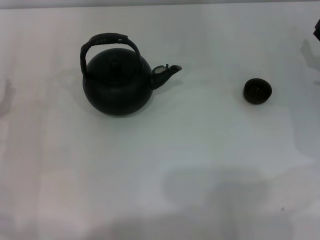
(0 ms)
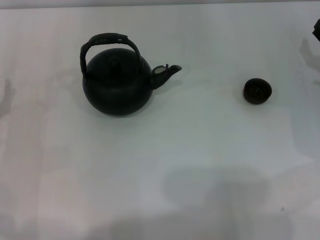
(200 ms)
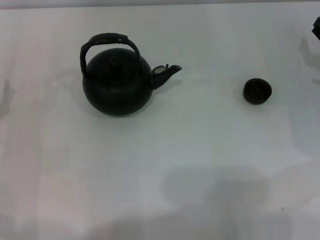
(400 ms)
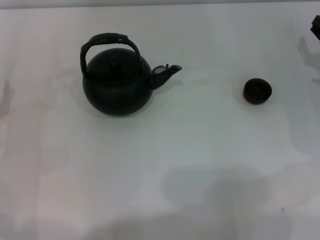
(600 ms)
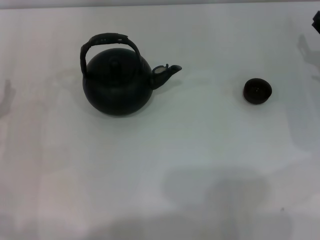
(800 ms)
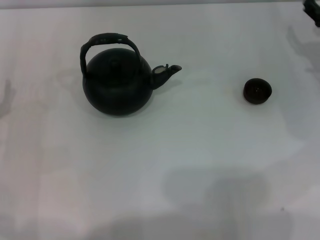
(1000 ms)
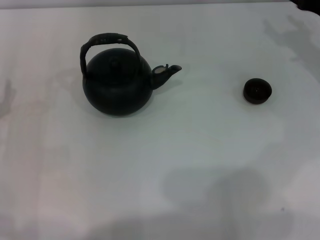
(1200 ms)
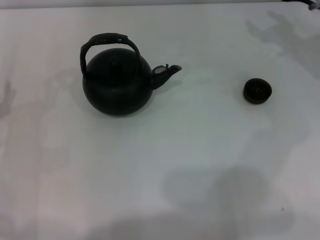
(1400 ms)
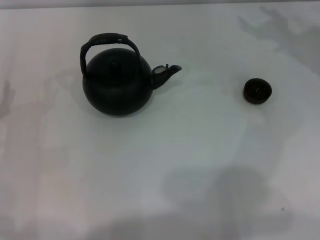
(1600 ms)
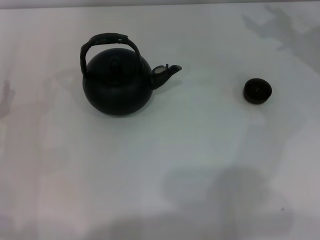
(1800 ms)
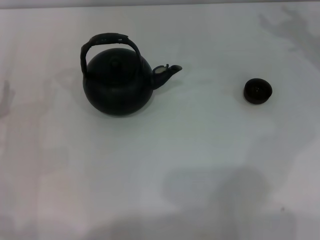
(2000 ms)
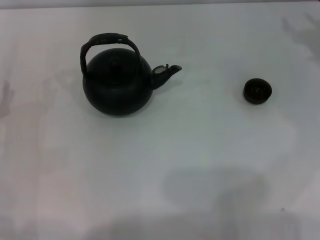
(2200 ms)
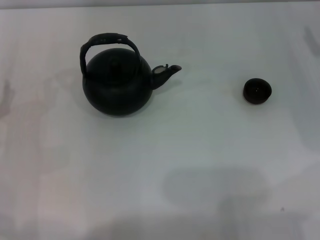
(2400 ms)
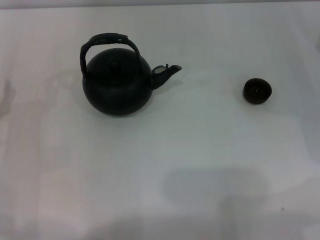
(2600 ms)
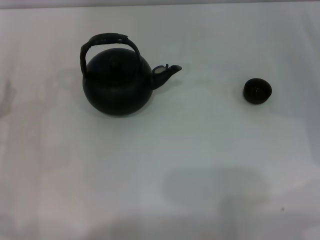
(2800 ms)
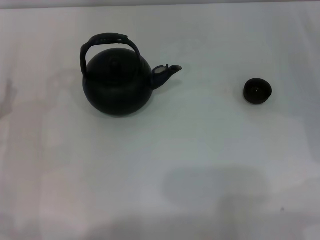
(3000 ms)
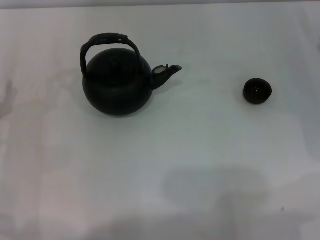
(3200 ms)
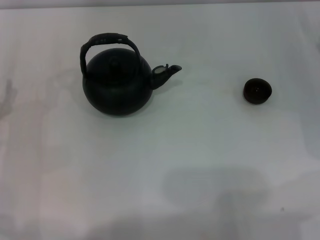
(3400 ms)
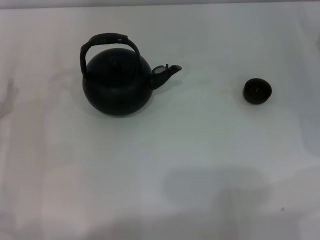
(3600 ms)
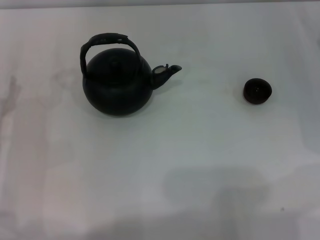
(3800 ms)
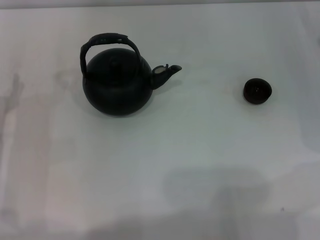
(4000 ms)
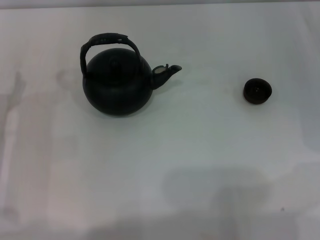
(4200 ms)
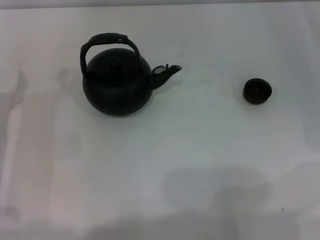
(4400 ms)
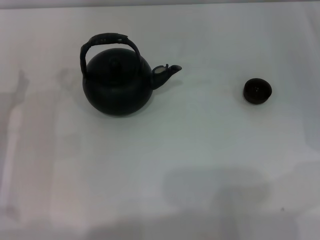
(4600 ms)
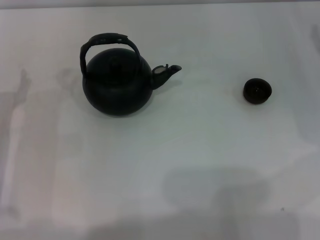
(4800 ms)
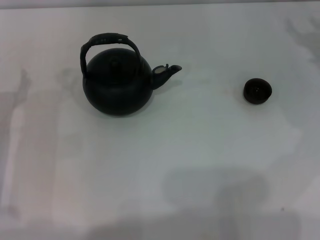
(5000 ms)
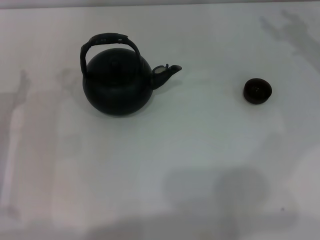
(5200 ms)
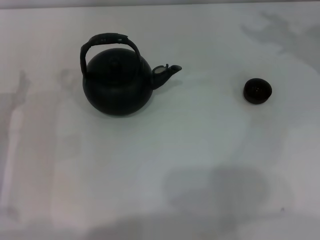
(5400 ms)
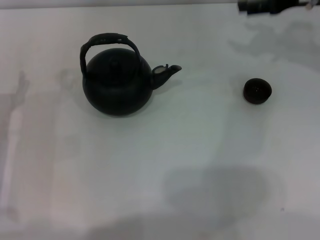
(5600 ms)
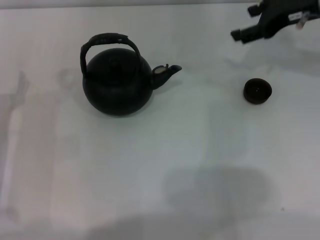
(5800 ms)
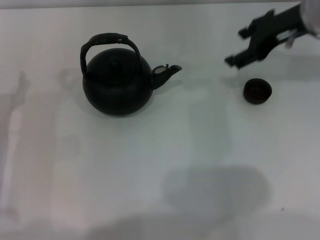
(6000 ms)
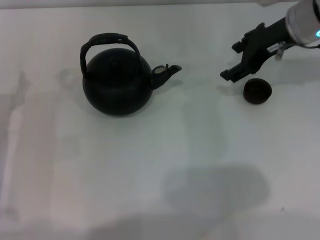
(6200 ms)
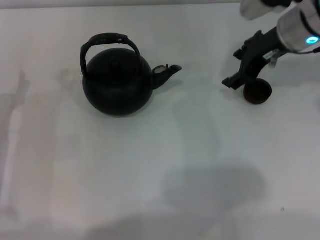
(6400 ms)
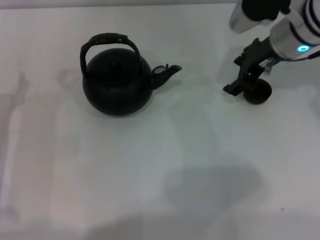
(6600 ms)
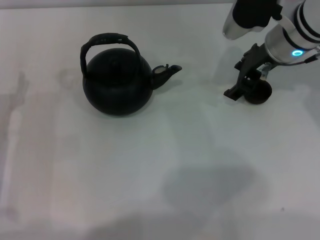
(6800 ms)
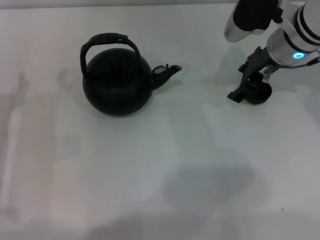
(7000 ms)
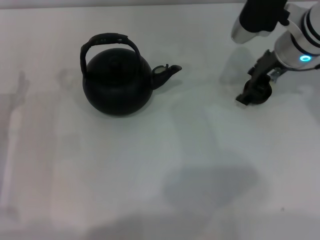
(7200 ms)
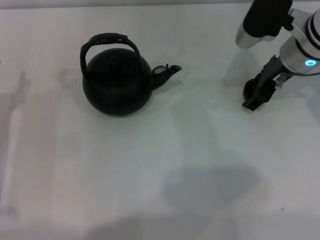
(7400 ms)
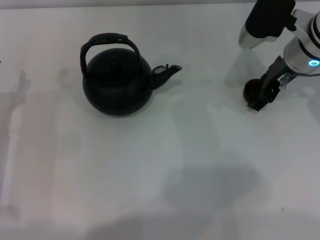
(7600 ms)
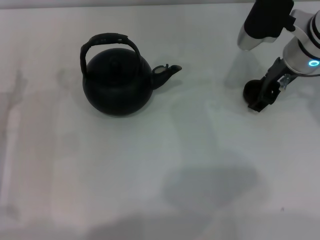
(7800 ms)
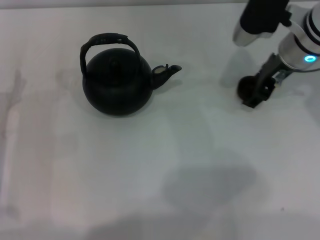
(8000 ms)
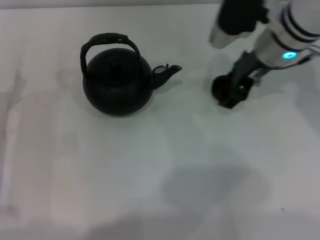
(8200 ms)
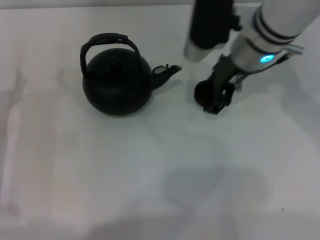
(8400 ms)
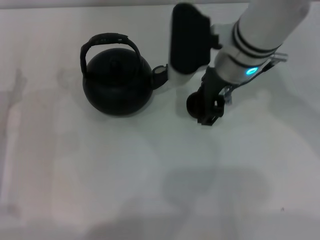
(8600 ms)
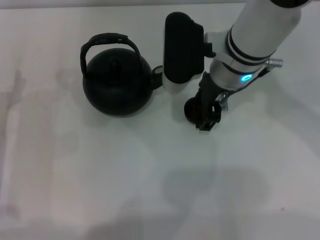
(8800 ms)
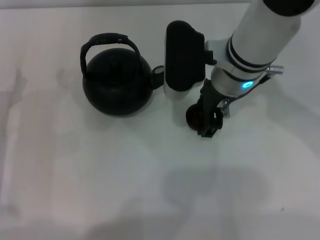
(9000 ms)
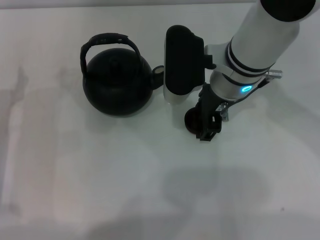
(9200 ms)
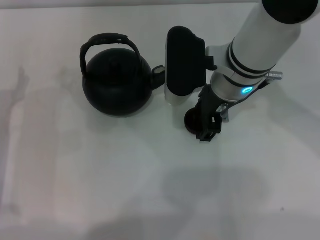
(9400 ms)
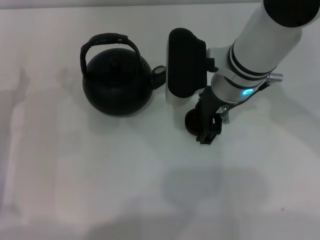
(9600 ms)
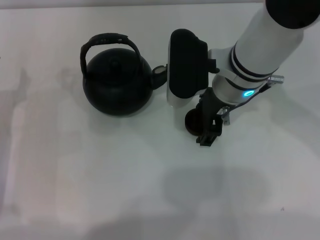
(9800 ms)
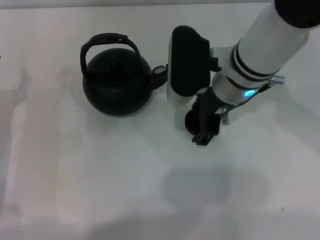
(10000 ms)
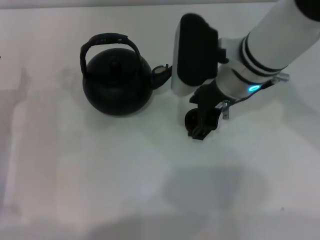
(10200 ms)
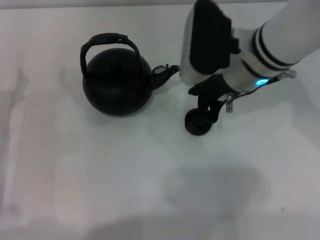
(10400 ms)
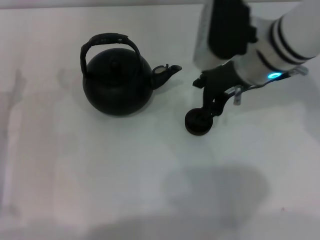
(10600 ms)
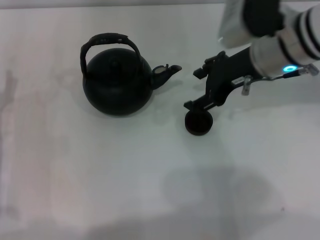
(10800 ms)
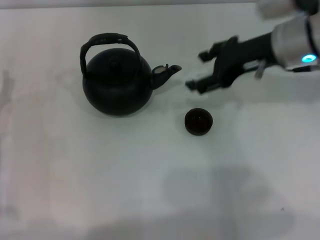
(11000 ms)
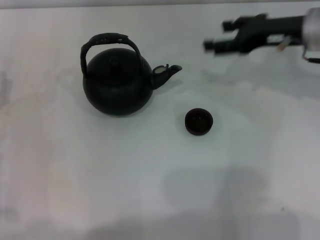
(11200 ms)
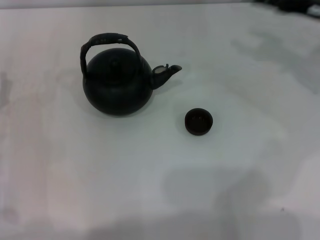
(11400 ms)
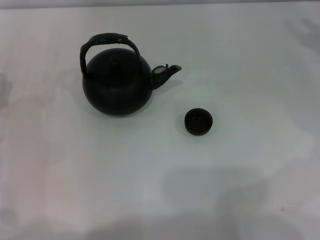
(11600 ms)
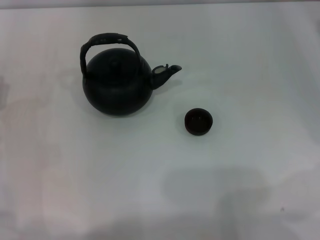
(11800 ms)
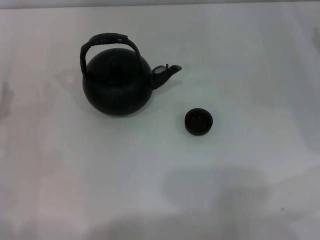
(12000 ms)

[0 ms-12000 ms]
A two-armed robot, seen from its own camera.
Task of the whole recording: Grasp the handle of the teapot with one hand and pour tea into the teacup.
Step, 0 ms to 8000 ms: Pick up the teacup with the right gripper.
Step, 8200 ms to 11000 ms: Place the teacup in the center of view with the right gripper.
4400 ms to 6000 ms: The right gripper moves to the left, upward and forward, some 20 cm.
6000 ms to 7600 ms: The right gripper goes approximately 5 cm downward.
7600 ms to 9000 ms: The right gripper is displaced to the left by some 10 cm.
9000 ms to 10400 ms: The grippers move only a little.
10400 ms to 12000 ms: The right gripper heads to the right, covering roughly 25 cm.

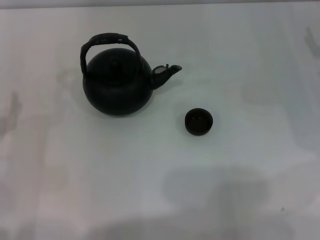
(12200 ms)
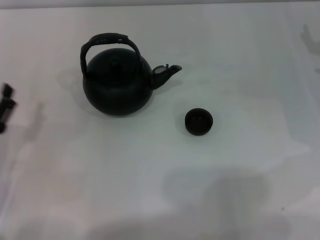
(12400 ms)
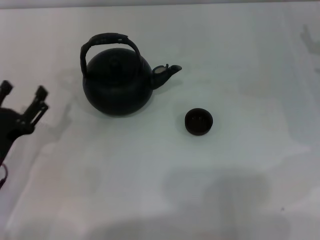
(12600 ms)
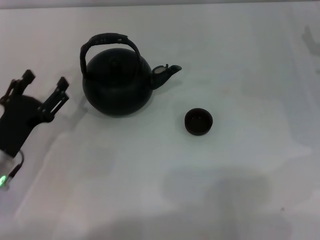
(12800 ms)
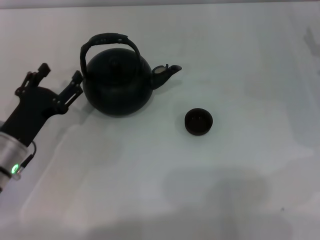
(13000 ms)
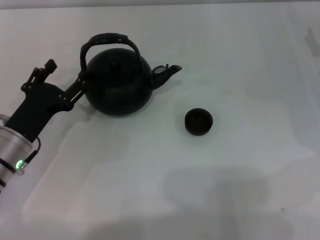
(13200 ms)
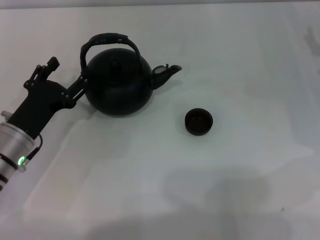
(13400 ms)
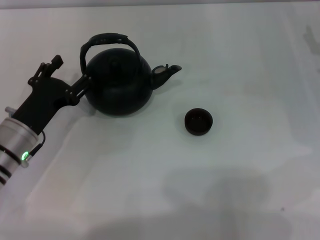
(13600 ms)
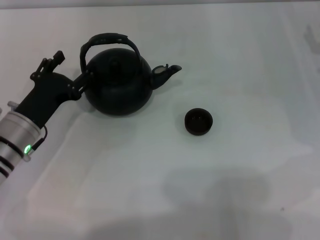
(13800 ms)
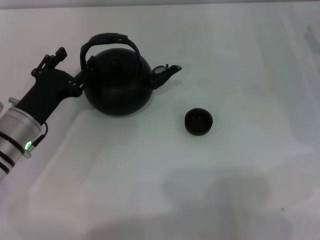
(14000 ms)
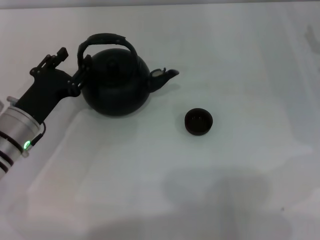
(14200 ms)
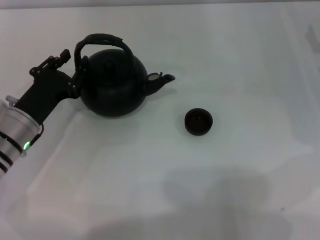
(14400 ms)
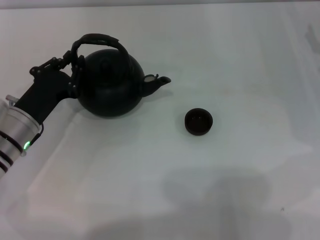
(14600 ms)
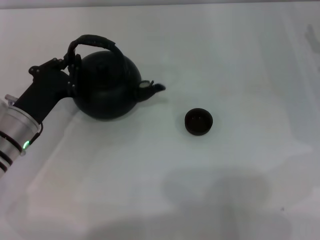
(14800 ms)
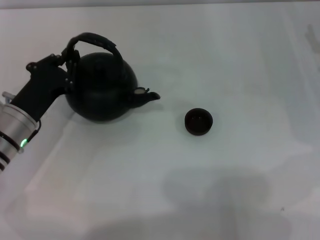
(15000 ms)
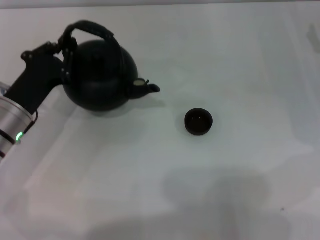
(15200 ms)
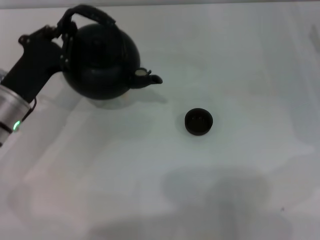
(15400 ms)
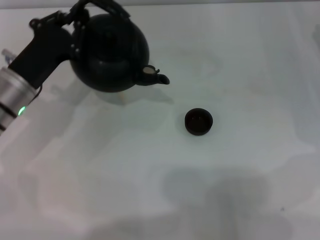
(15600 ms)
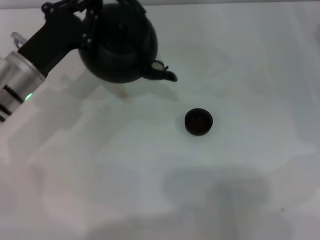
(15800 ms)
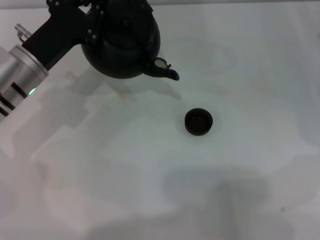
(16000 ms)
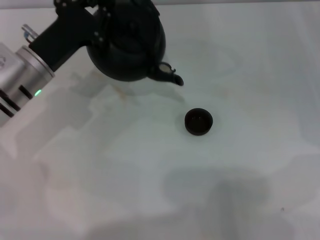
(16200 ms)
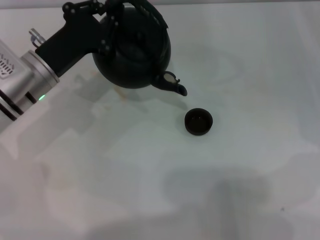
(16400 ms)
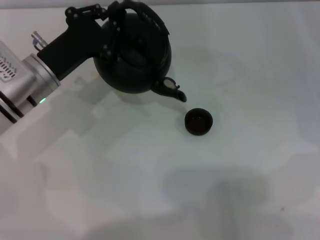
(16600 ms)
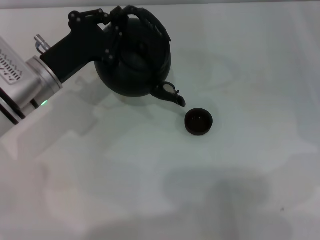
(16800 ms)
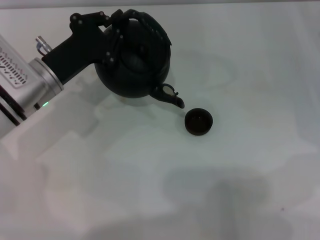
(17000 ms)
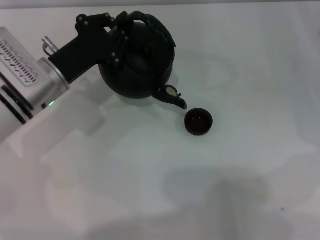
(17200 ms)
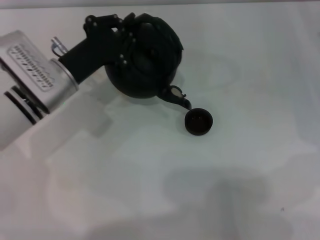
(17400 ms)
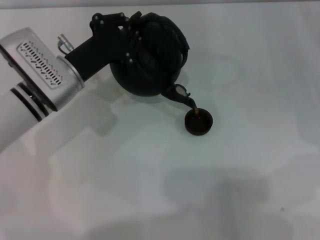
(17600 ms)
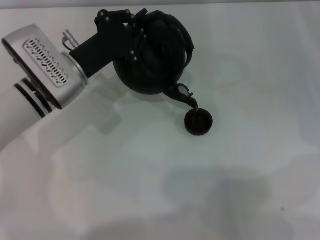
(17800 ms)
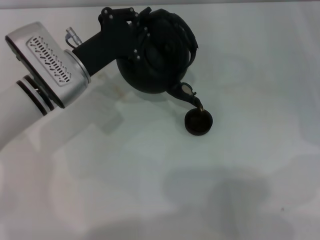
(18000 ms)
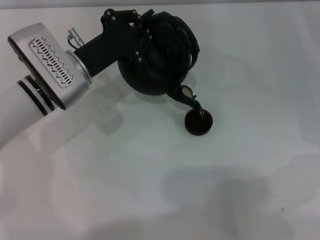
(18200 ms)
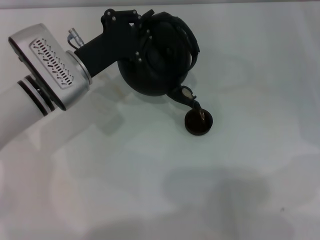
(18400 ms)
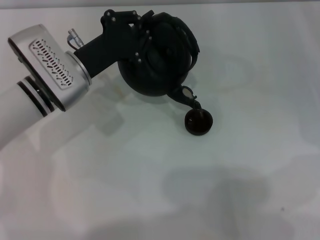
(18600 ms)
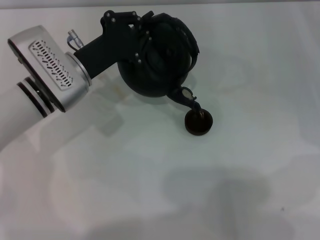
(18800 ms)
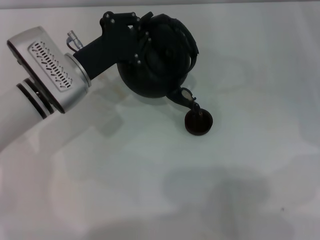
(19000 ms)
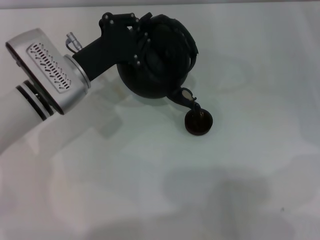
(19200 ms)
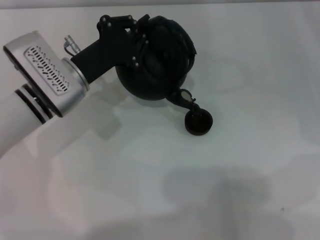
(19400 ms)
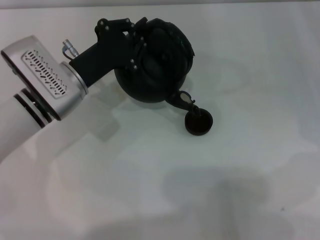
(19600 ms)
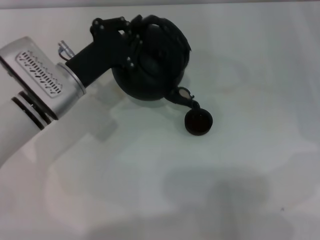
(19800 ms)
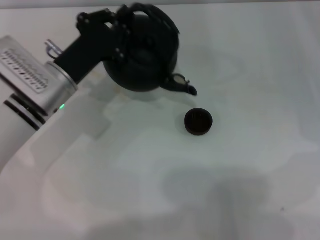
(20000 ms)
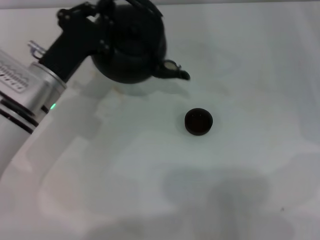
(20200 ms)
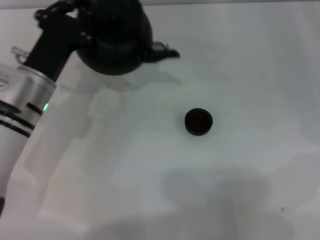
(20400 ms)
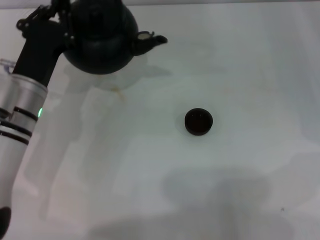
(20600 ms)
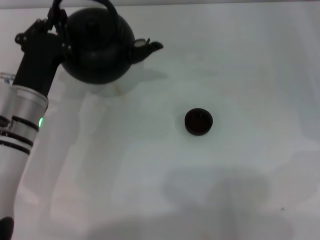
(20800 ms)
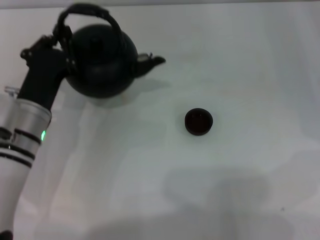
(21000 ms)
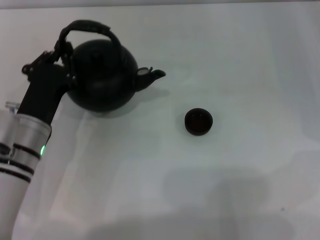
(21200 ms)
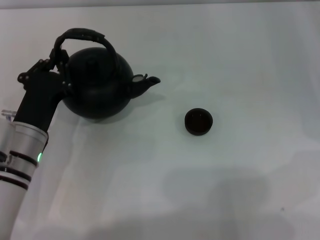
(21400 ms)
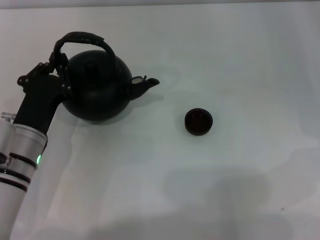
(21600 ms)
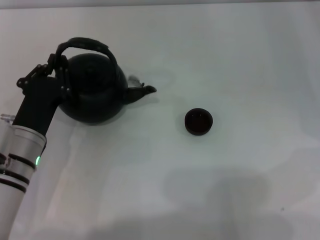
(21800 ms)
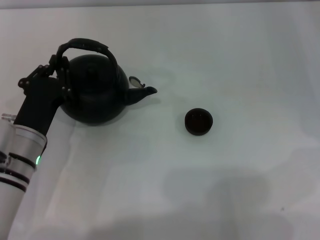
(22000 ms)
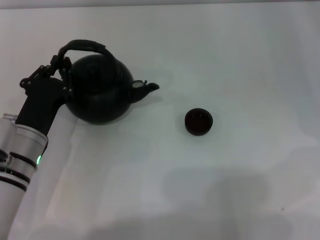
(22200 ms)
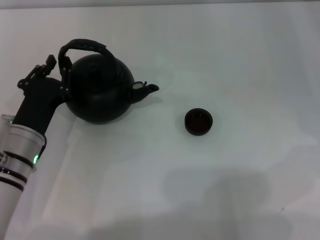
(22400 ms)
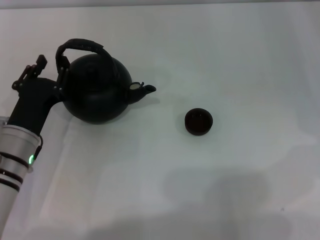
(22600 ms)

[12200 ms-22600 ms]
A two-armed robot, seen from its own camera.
Task of the whole recording: Grasp the handle of the teapot with one hand and pour tea into the teacup.
Step, 12200 ms to 15200 ms: Pick up the teapot with the left gripper.
Step, 15400 ms to 20000 ms: Pour tea into the teacup with the left gripper.
12200 ms to 13600 ms: The left gripper heads to the right and forward, covering some 10 cm.
13600 ms to 15200 ms: The left gripper closes up.
15200 ms to 16600 ms: The left gripper moves some 5 cm.
16600 ms to 19600 ms: There are only small adjustments of the grippers.
19600 ms to 21200 ms: The left gripper goes some 5 cm backward.
21200 ms to 22600 ms: The grippers stay close to where they were, moving slightly.
